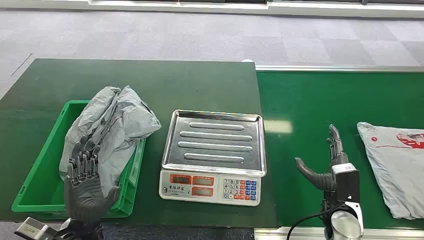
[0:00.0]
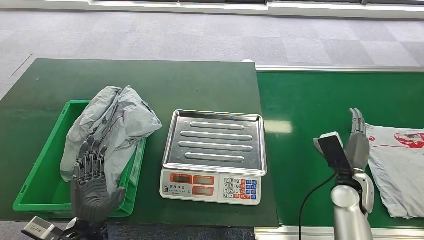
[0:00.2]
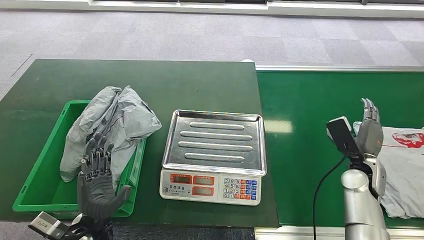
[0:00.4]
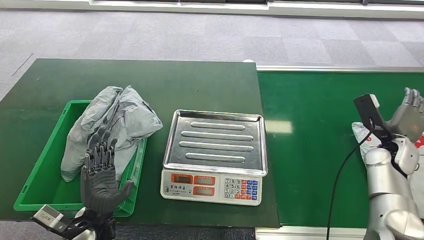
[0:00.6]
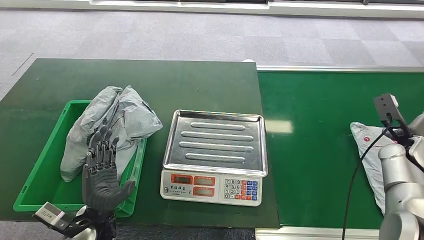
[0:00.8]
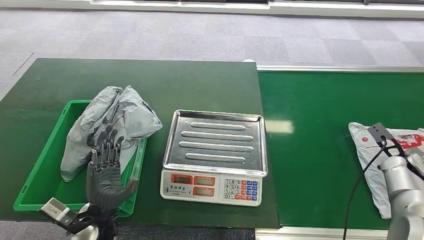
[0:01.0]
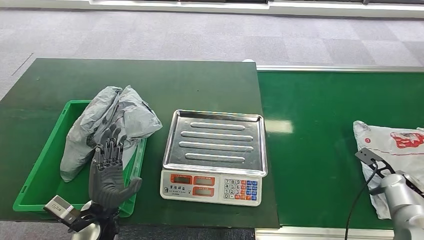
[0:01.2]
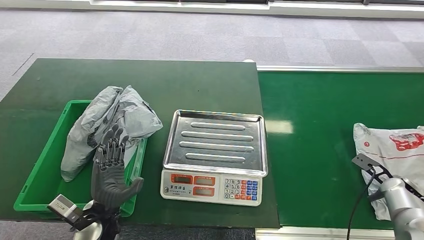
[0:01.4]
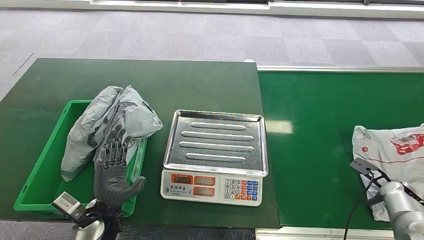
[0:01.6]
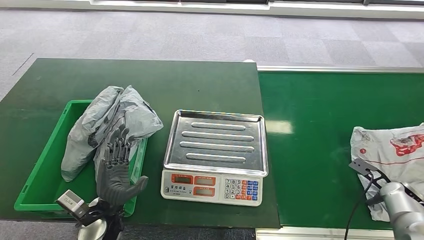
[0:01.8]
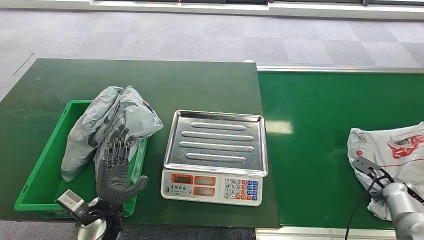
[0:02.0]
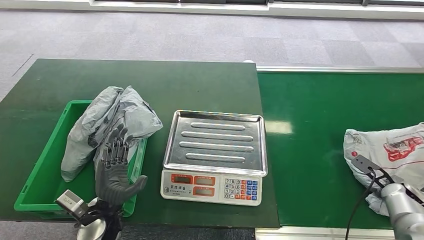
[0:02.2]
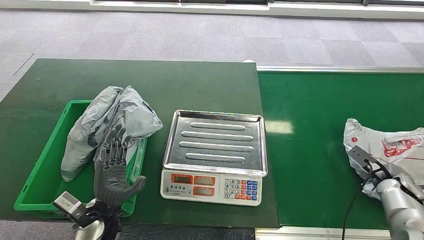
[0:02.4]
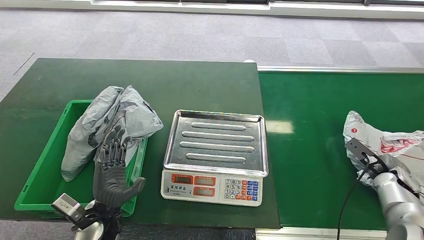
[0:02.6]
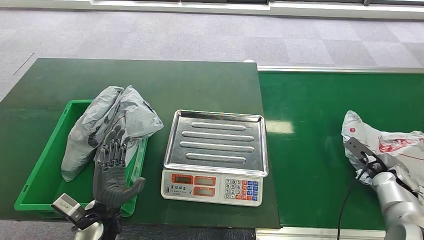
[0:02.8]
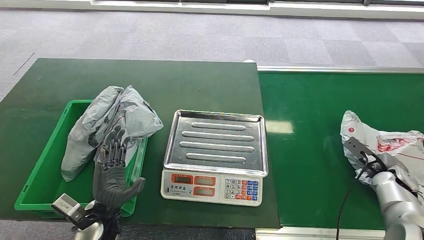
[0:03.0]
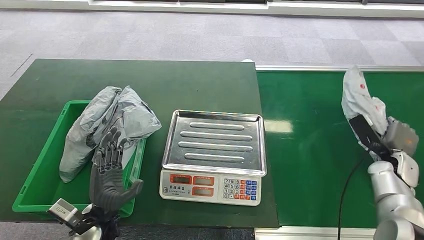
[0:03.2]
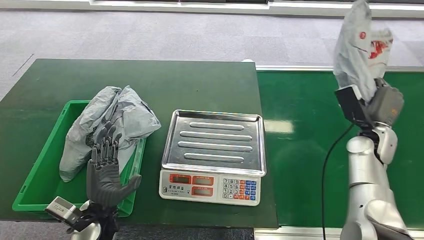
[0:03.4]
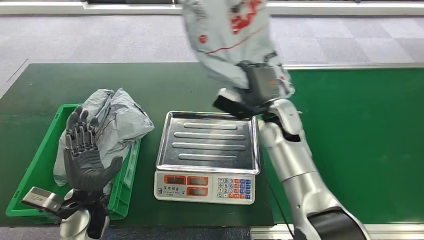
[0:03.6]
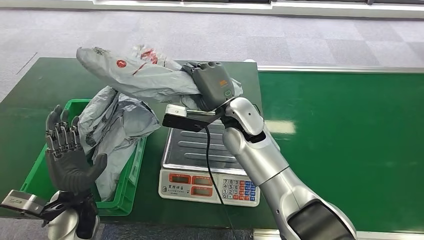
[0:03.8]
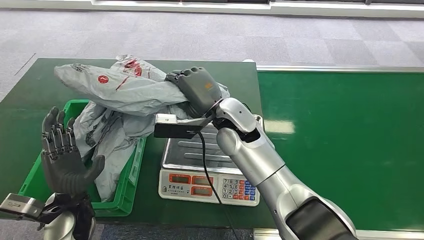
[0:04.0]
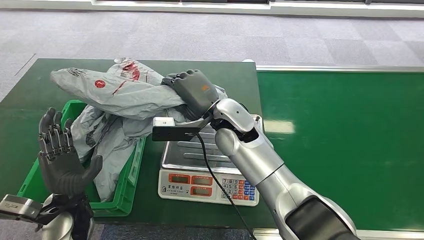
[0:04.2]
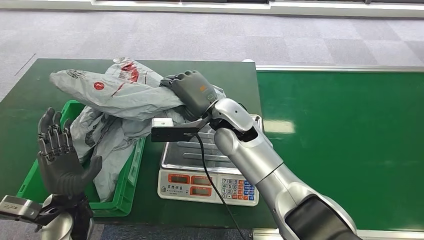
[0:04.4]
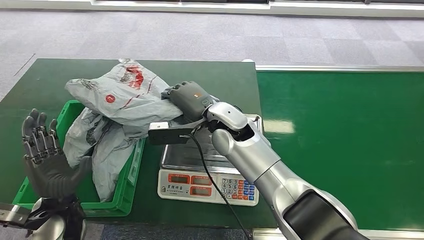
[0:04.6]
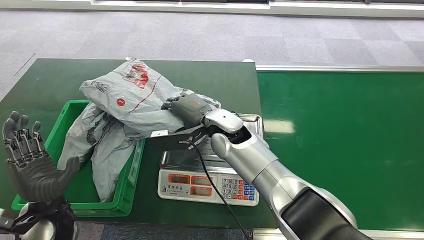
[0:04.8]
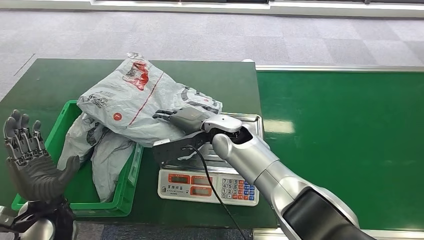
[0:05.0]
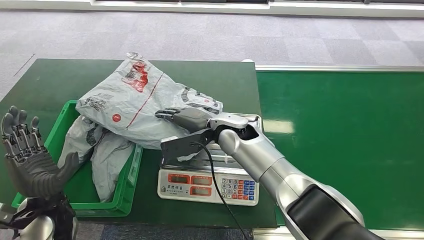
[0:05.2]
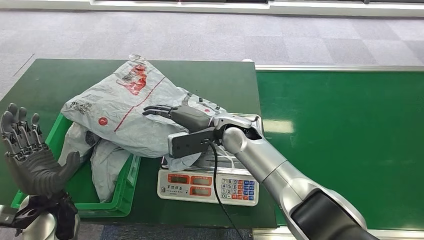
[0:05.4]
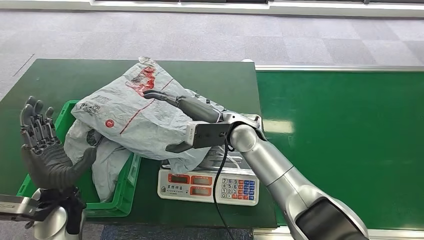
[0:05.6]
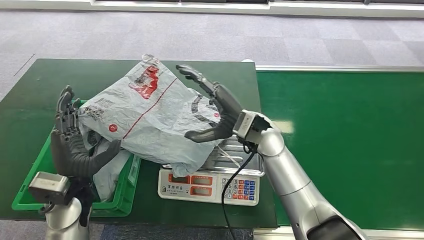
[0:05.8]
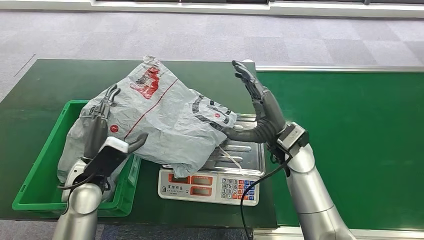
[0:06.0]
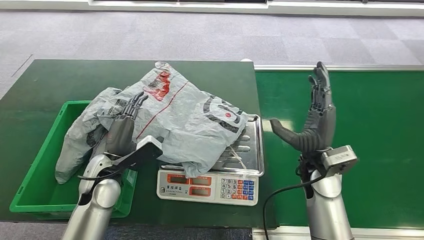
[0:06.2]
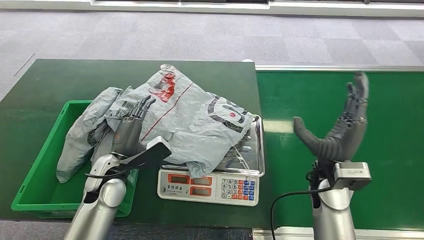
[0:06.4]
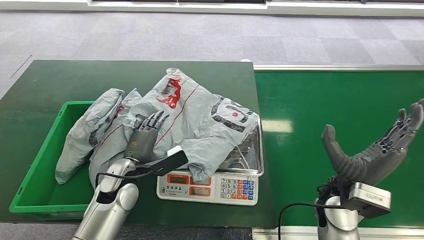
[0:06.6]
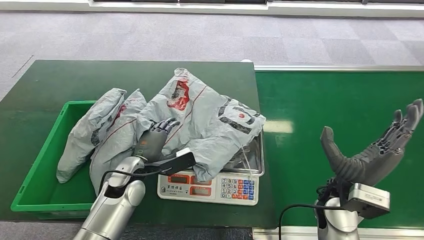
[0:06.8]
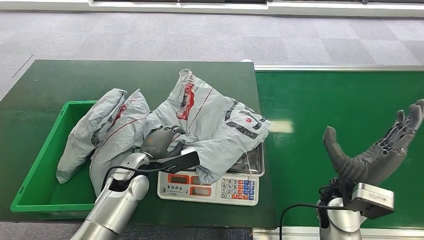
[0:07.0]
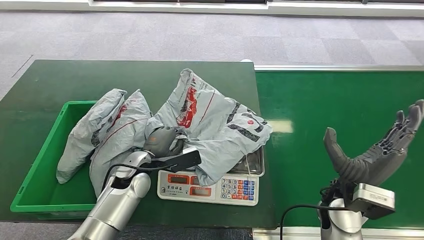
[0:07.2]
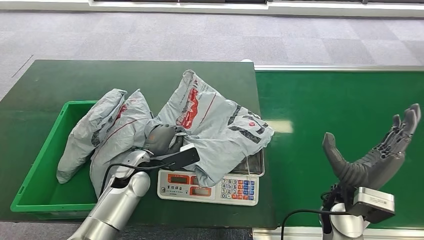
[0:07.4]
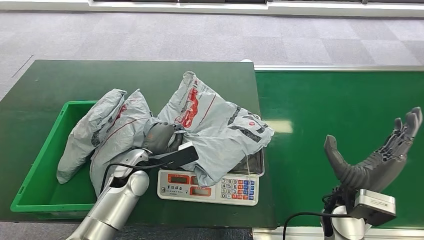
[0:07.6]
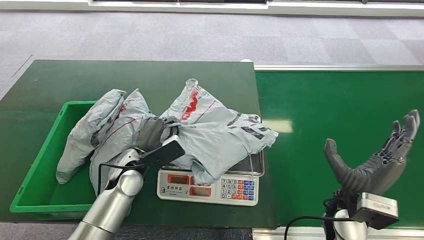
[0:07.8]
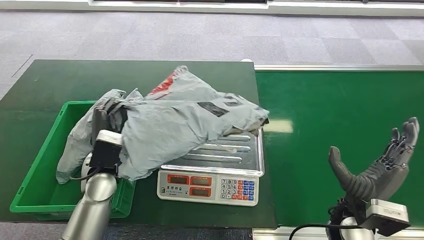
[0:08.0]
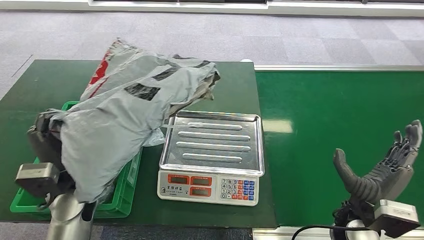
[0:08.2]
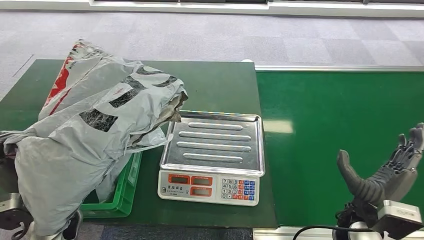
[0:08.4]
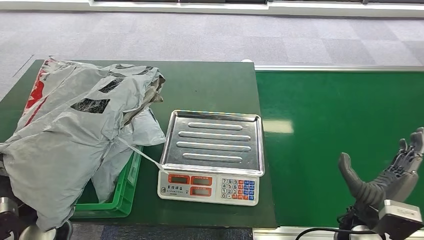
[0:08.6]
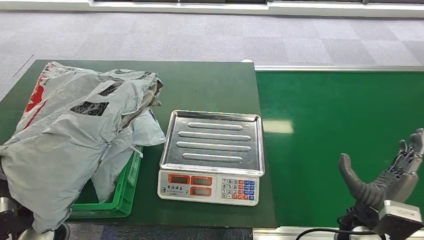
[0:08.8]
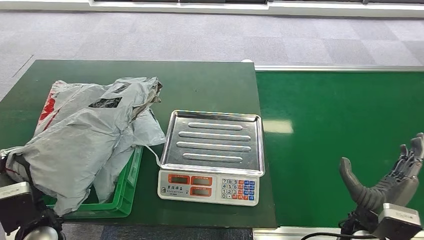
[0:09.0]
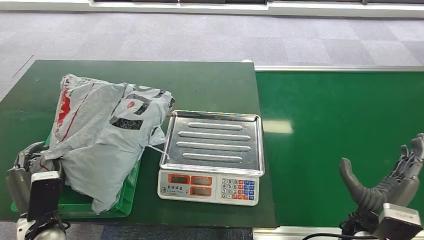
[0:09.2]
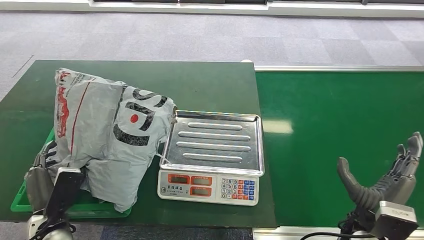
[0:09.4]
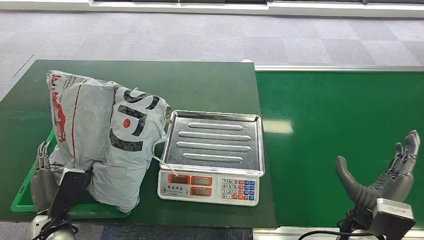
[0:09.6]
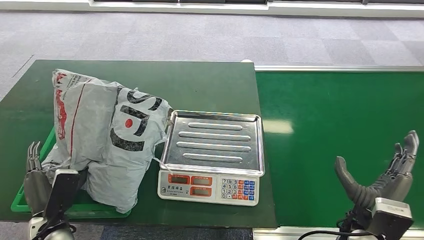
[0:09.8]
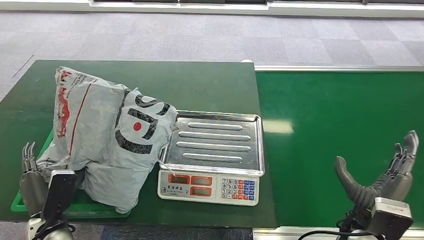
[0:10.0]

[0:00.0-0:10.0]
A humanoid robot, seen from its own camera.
Step, 0:00.0 to 0:03.6: Pick up the package from the conveyor belt.
Step, 0:03.8 to 0:06.4: Place the package onto the inbound machine.
Step, 0:06.6 to 0:08.2: Pick up the package from the inbound machine.
Step, 0:08.6 to 0:10.0: Place the package into the parcel locker.
0:08.6 to 0:10.0: The left hand shifts some 5 cm downward.
